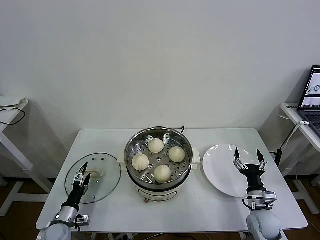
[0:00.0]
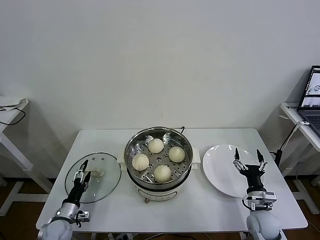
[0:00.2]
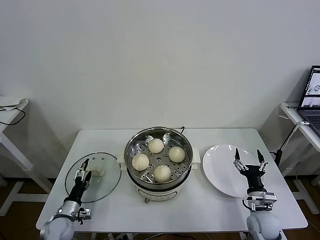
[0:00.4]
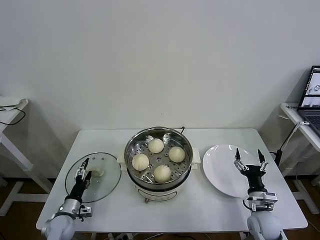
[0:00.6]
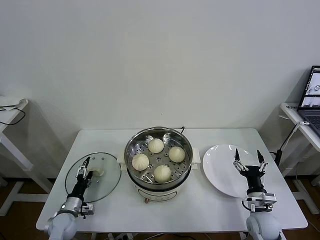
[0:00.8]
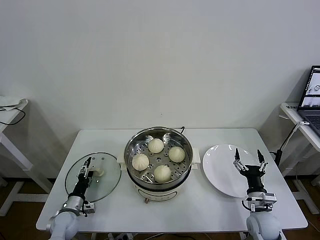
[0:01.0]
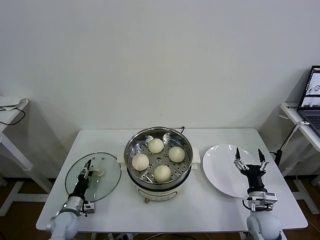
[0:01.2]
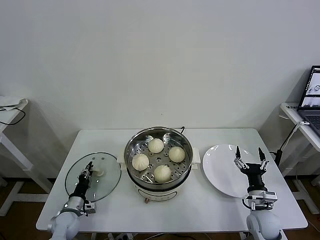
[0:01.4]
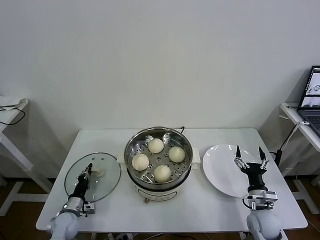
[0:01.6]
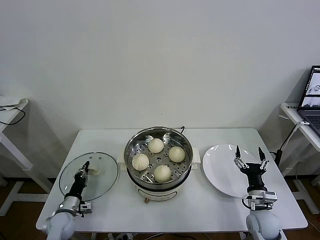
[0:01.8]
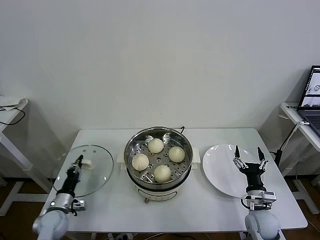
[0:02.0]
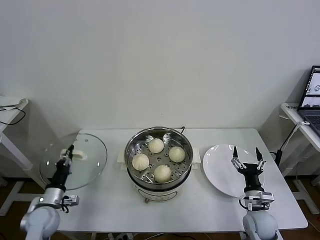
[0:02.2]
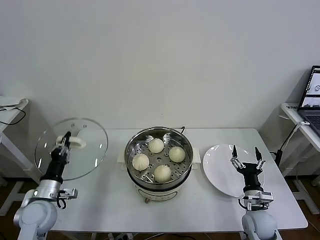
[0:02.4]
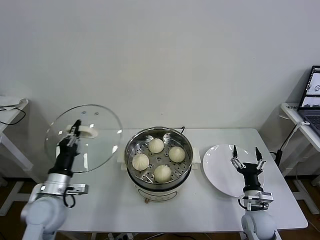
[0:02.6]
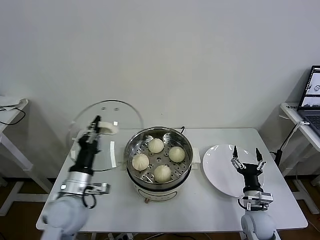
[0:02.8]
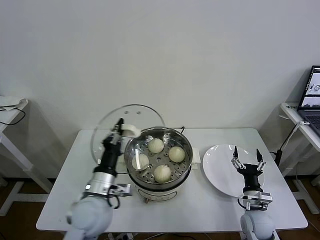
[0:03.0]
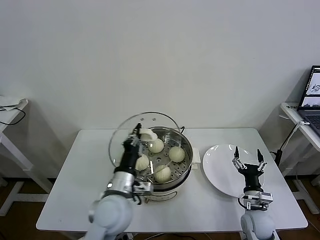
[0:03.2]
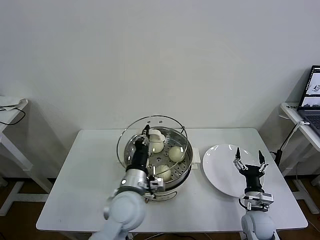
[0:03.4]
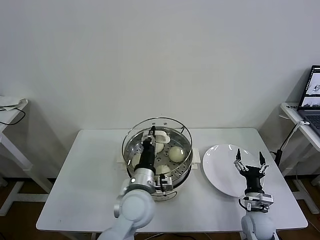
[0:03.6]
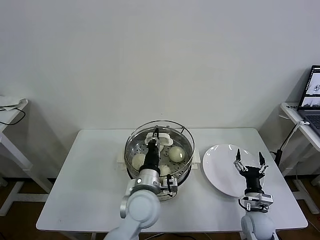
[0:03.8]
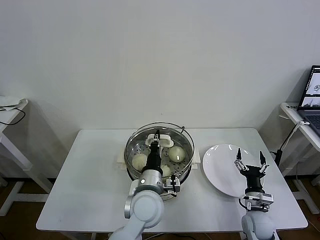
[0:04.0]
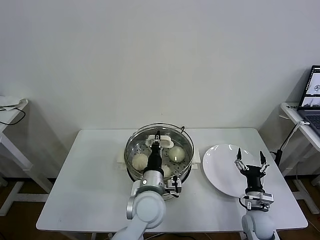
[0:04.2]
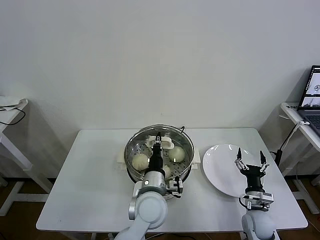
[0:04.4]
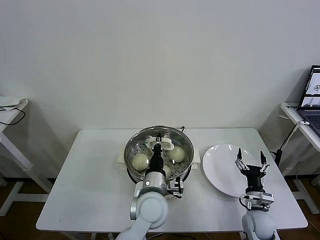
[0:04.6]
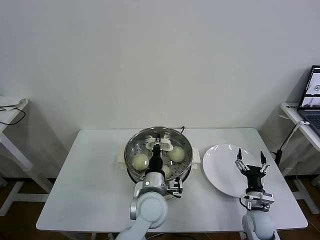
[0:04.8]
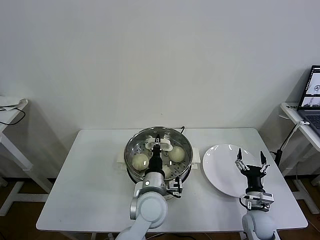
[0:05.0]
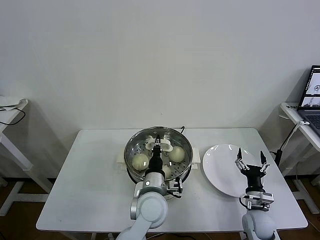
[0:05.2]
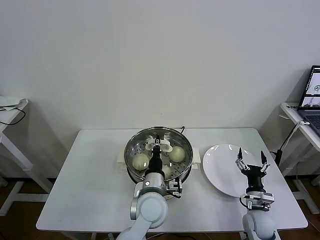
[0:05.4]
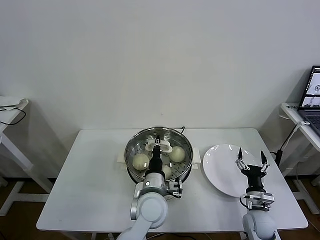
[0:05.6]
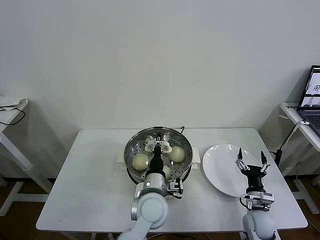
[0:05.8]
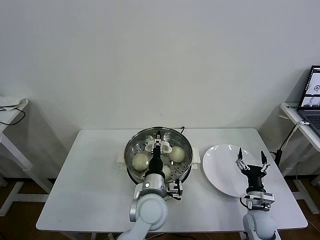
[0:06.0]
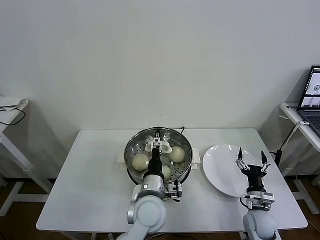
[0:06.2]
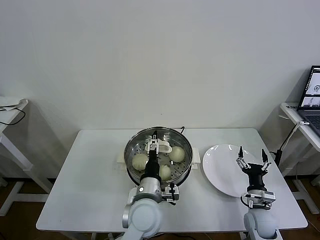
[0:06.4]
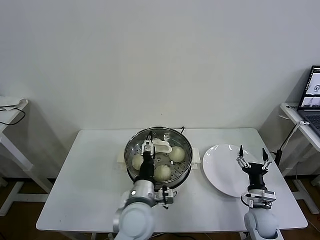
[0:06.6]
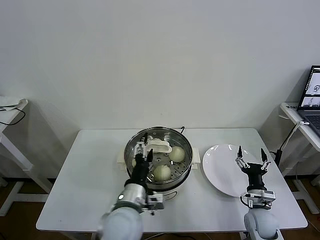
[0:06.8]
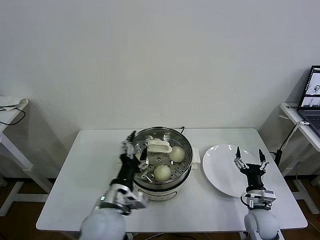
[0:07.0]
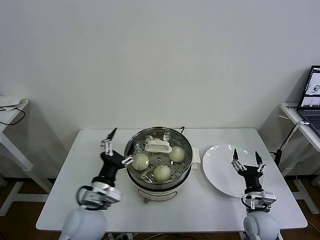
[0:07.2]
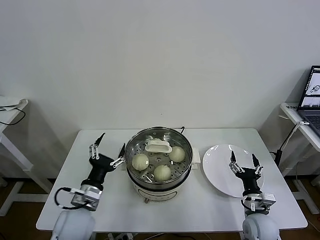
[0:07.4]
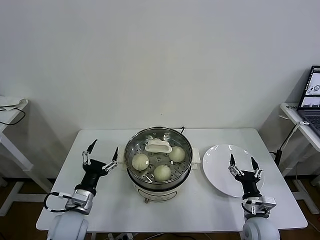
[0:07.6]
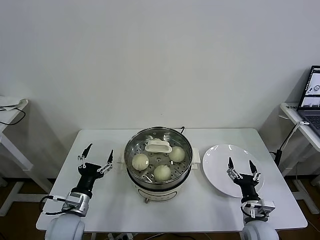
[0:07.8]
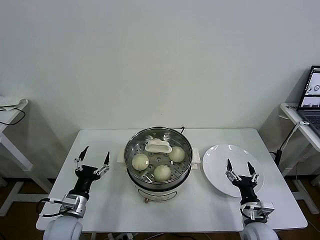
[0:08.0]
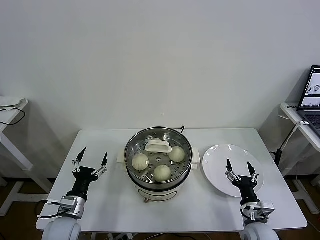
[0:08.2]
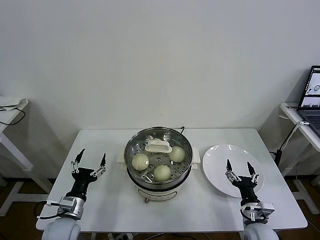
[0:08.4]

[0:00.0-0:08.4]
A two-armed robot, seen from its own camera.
Task of the whole recording: take steamed baozi put them in steamer then cover it.
Step, 0:02.0 to 0:06.6: Place the pot lid on the steamer with left gripper.
0:00.0 to 0:01.4: The left gripper shifts by some 5 cm, and closes.
0:01.4 to 0:02.8: The left gripper heads upward and to the right, covering roughly 25 cm, and closes up.
0:02.8 to 0:04.2: The left gripper goes roughly 25 cm to the right.
0:04.2 to 0:05.6: The grippers move only a little.
0:05.6 to 0:07.0: The left gripper goes about 10 cm to the left, backward and upward, and opens.
0:07.0 to 0:08.4: The left gripper shifts about 20 cm to the left and downward; the right gripper ends up approximately 5 cm from where it was.
